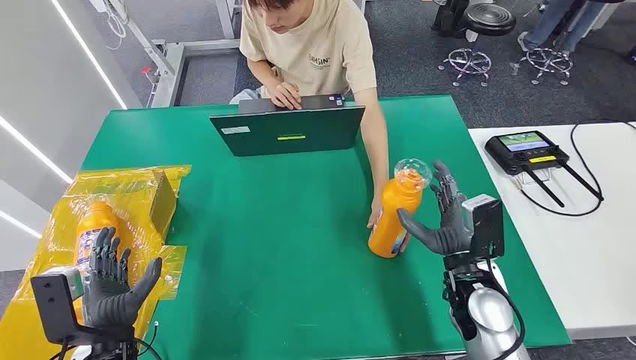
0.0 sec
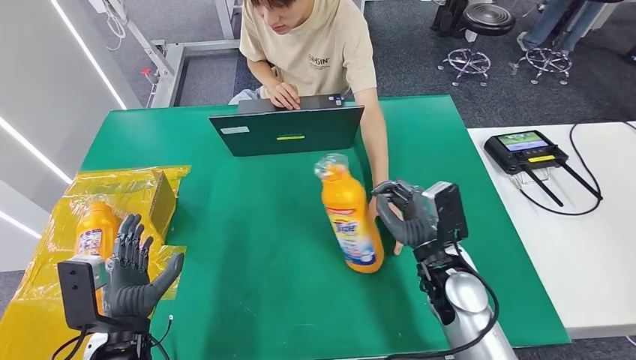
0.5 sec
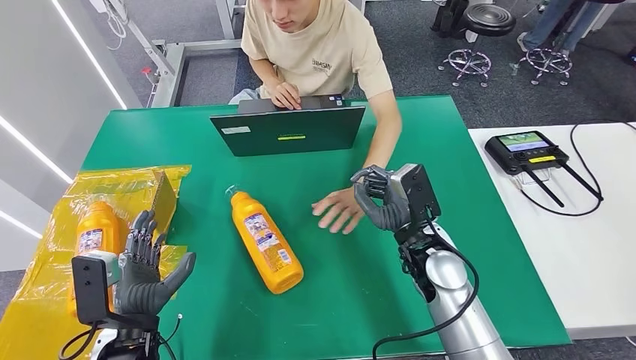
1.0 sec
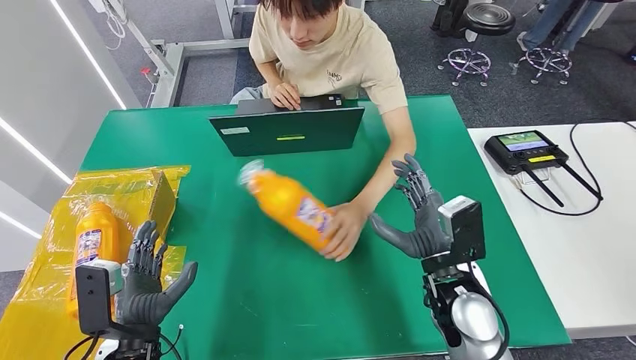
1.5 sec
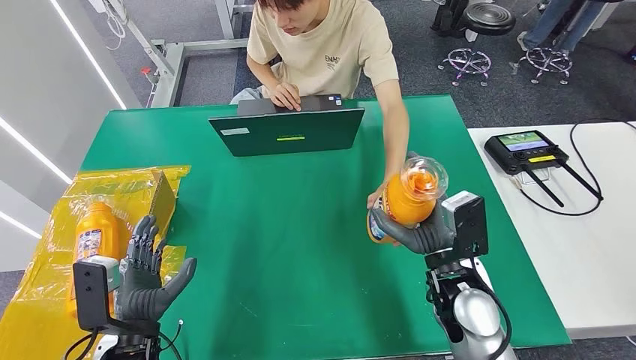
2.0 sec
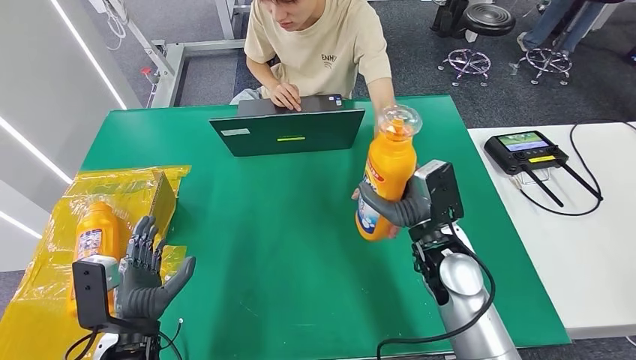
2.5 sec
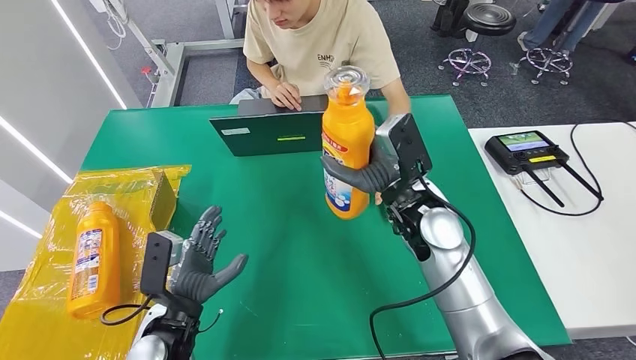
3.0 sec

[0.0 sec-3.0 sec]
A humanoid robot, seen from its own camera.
Step, 0.0 sec to 2.5 sec: Pick up the bottle from the table.
